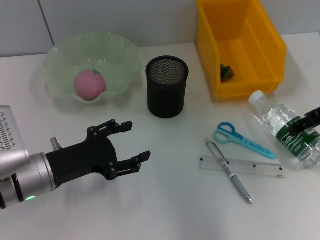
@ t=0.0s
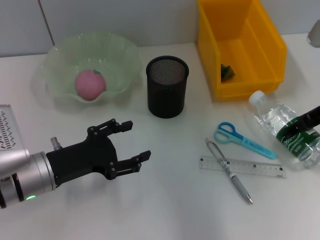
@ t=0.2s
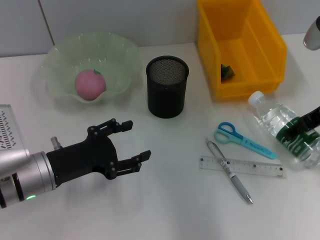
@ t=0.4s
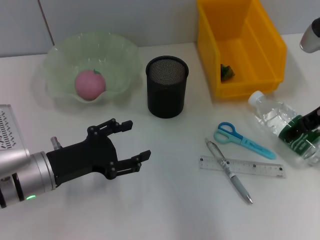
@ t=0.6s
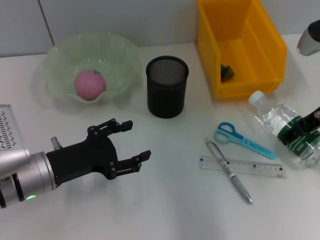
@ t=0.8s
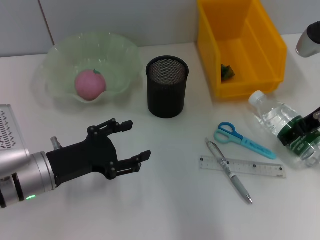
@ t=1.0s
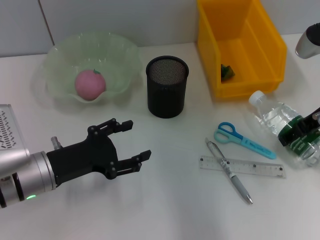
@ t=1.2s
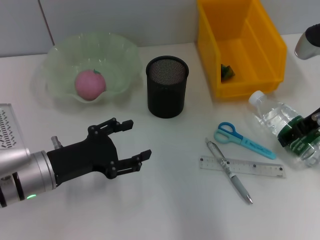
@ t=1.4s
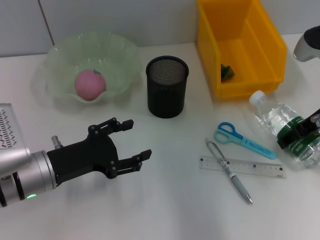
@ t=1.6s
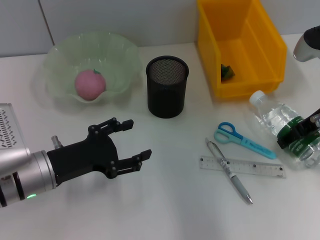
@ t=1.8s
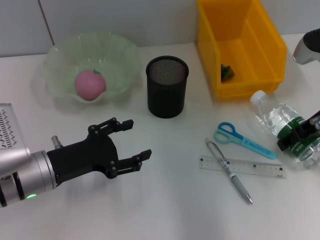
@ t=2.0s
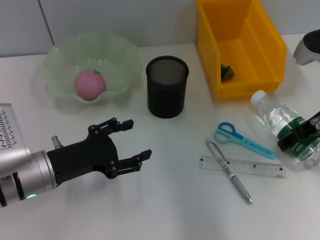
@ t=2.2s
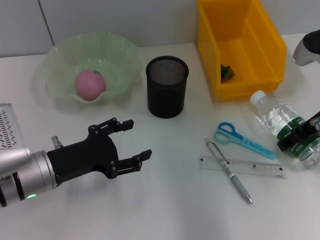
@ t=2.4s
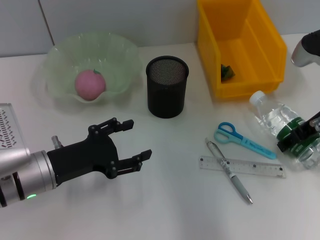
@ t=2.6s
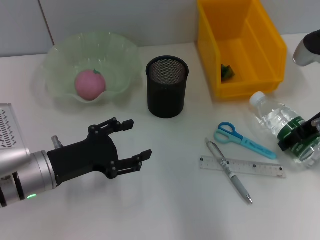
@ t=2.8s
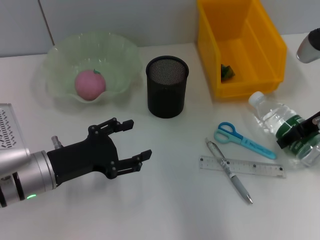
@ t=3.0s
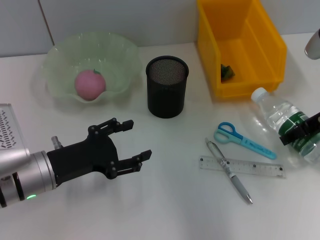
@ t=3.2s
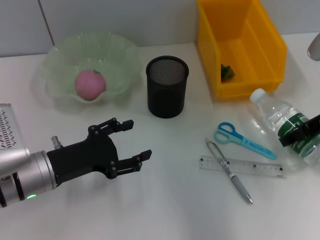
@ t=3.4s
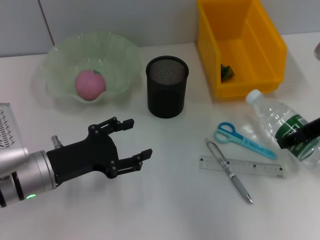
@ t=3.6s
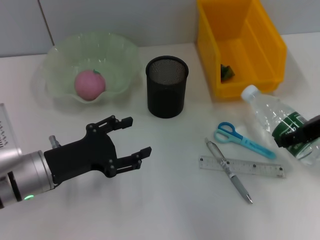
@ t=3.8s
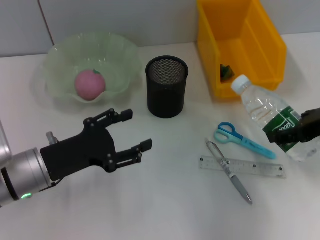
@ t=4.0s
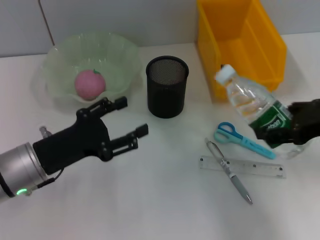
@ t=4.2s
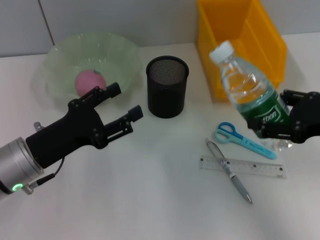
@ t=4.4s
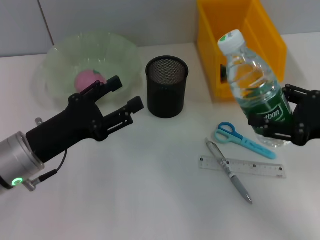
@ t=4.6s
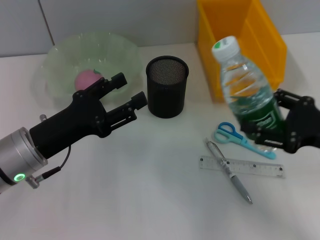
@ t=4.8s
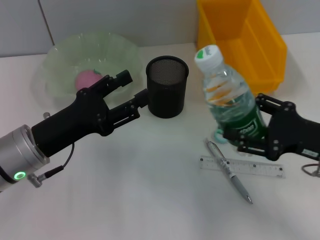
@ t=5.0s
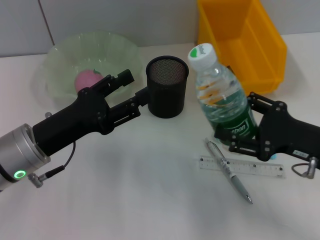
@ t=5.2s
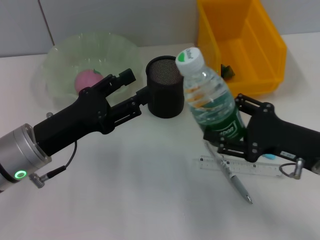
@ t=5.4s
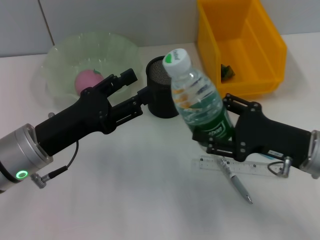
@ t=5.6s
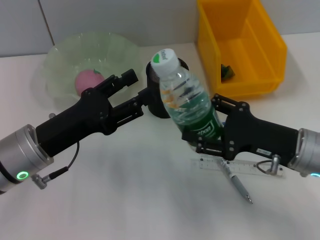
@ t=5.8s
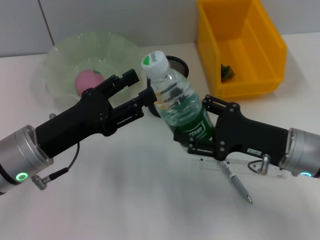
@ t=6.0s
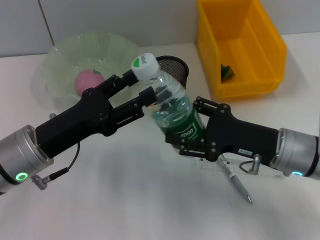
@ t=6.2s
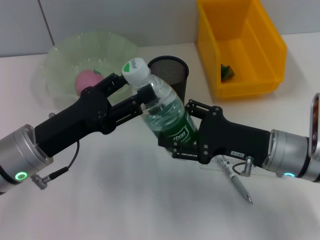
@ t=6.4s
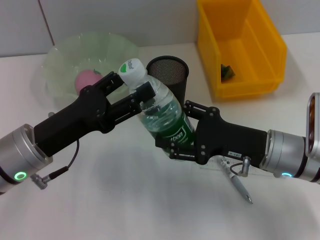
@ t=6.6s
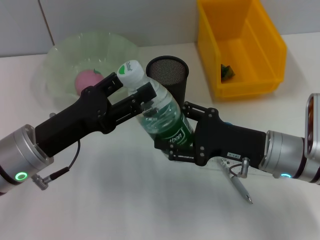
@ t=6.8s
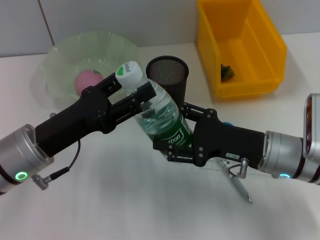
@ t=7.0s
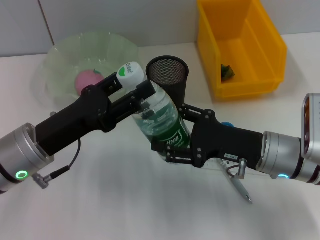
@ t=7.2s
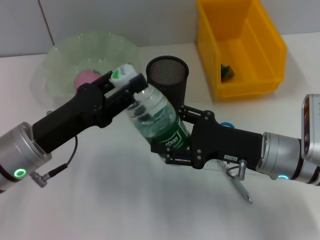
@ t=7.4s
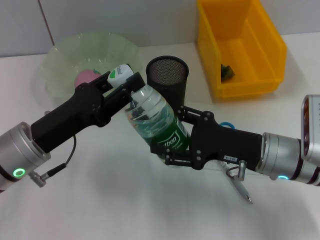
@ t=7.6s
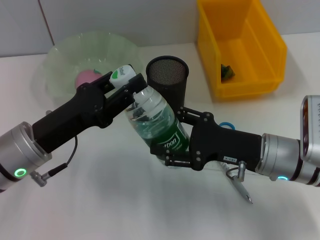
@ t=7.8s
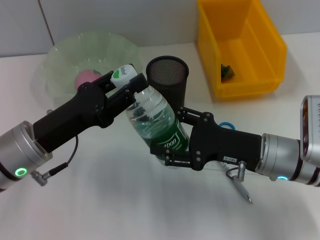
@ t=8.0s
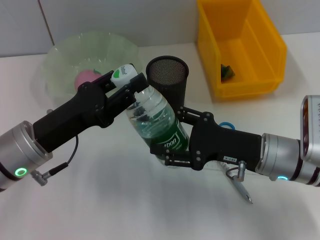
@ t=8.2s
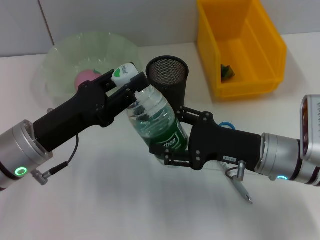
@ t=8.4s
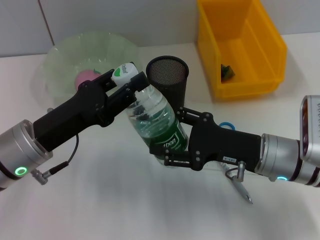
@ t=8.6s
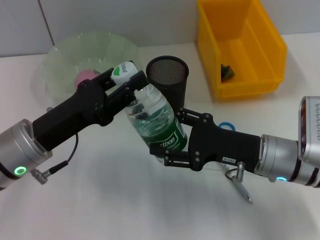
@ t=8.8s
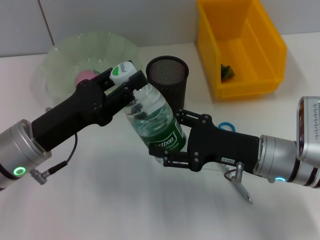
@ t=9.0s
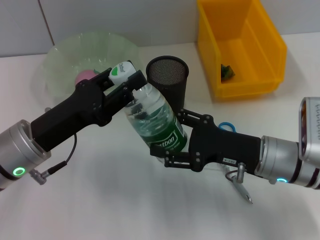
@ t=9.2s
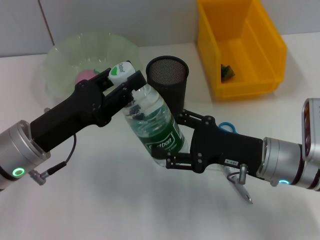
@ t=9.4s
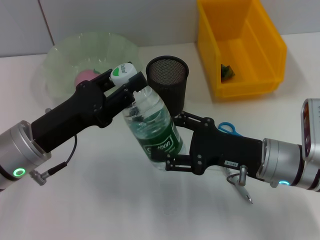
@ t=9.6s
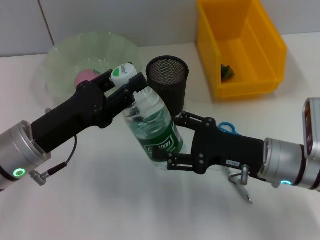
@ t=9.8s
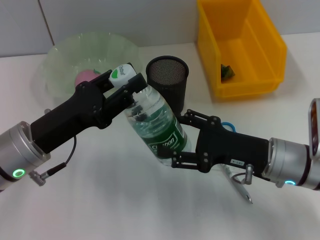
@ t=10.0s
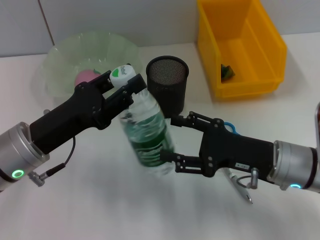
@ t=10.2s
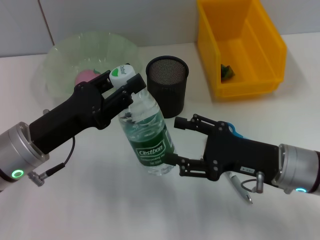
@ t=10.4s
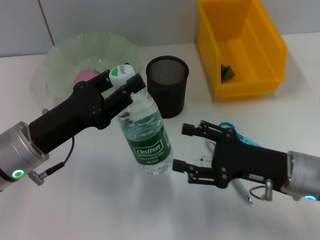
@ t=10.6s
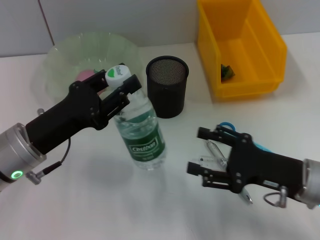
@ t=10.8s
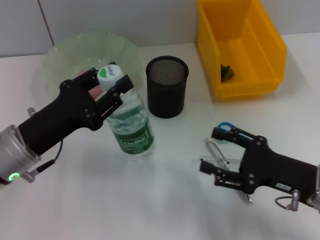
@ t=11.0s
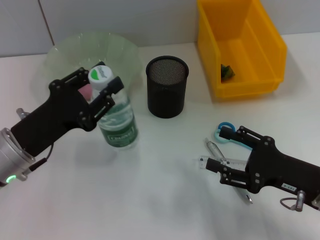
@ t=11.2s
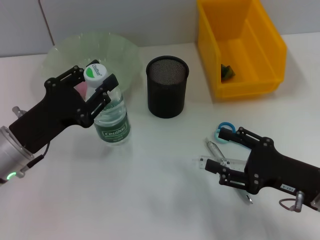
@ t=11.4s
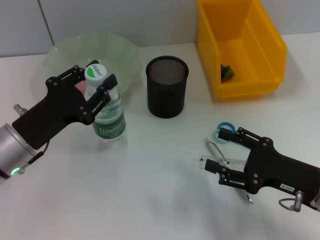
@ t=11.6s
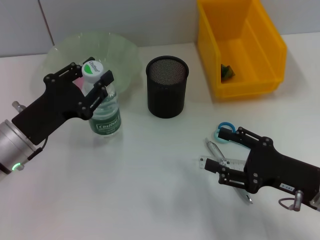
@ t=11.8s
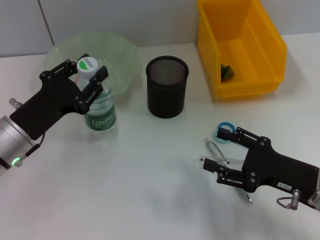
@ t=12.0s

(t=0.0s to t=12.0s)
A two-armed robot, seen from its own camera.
Step, t=0.0s - t=2.8s: Grab the water bottle with the right hand.
Step, t=3.0s - t=10.6s: Pass the water bottle from the right hand to the left hand.
t=0.0s - t=1.6s: The grippers stay close to where they were, moving slightly.
t=1.6s - t=3.0s: Both grippers stay put.
t=3.0s - t=4.4s: The right gripper heads backward, covering roughly 10 cm.
t=4.4s - t=6.0s: The right gripper moves downward and to the left, approximately 10 cm.
t=6.0s - t=7.6s: The left gripper closes.
t=7.6s - t=9.0s: Both grippers stay put.
t=9.0s - t=10.4s: The grippers make only small movements.
t=10.4s - t=12.0s: The right gripper changes place by about 5 cm.

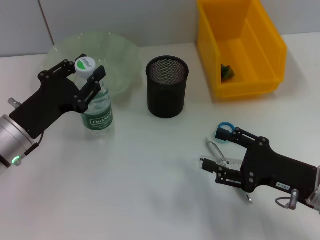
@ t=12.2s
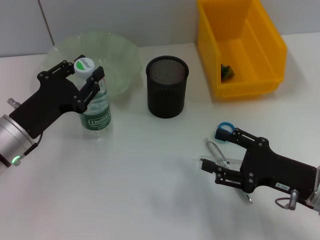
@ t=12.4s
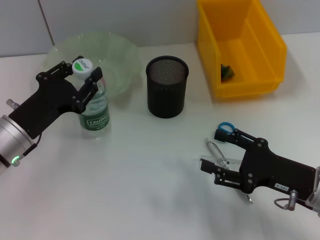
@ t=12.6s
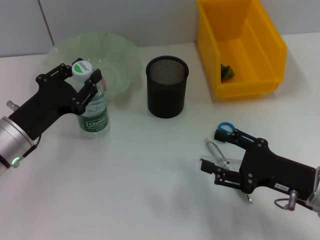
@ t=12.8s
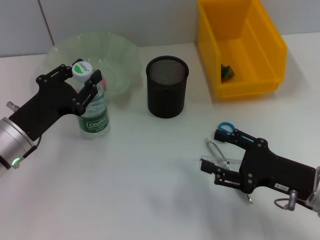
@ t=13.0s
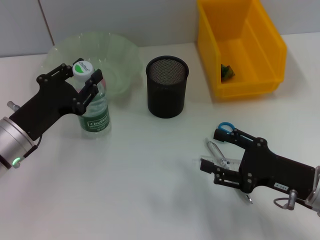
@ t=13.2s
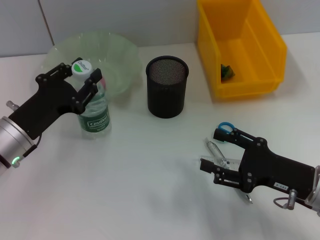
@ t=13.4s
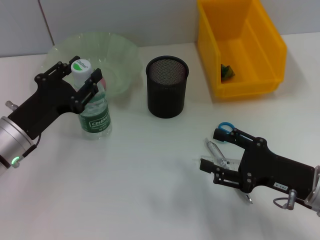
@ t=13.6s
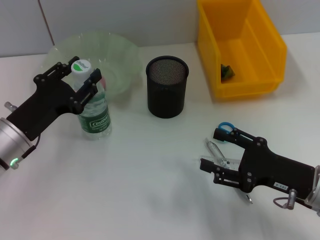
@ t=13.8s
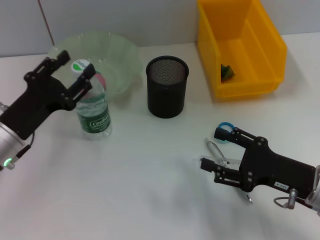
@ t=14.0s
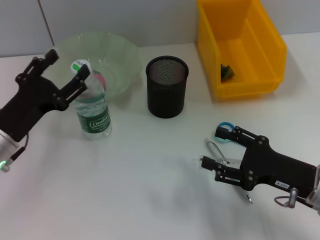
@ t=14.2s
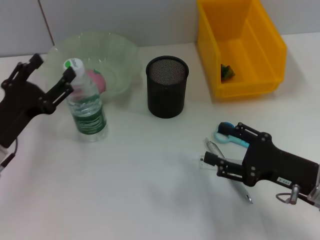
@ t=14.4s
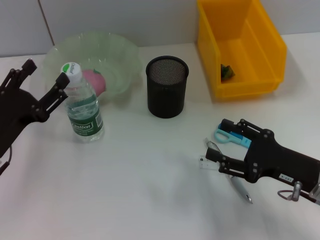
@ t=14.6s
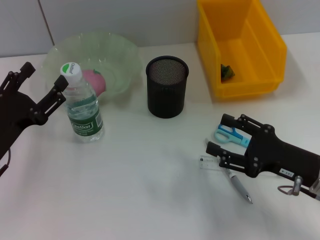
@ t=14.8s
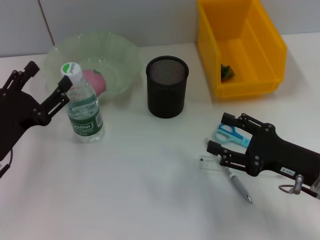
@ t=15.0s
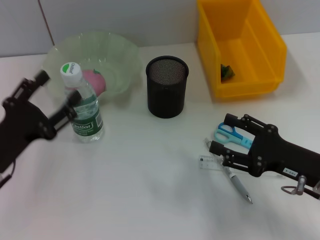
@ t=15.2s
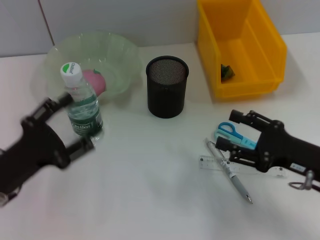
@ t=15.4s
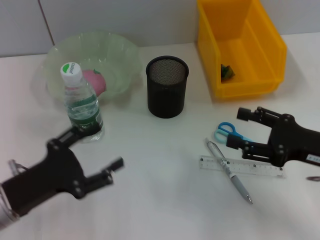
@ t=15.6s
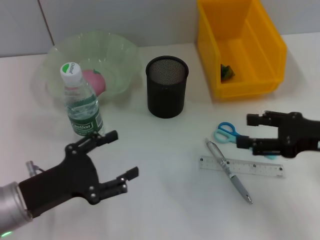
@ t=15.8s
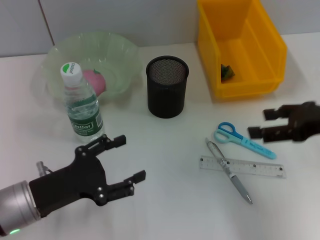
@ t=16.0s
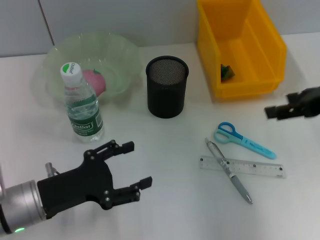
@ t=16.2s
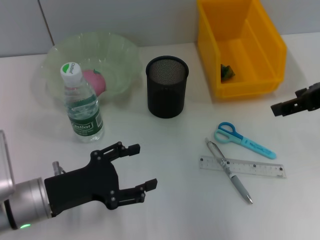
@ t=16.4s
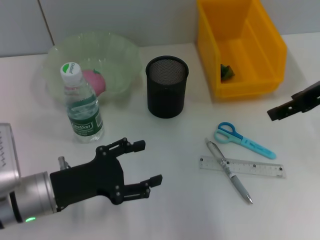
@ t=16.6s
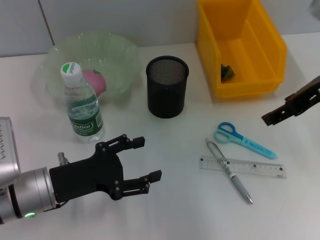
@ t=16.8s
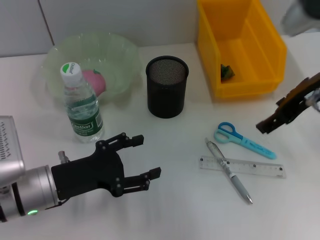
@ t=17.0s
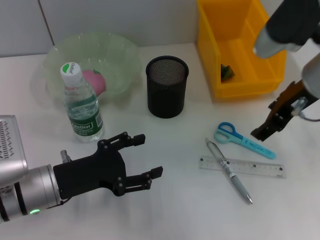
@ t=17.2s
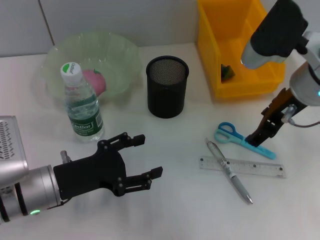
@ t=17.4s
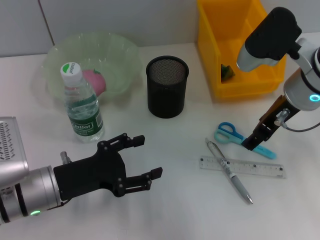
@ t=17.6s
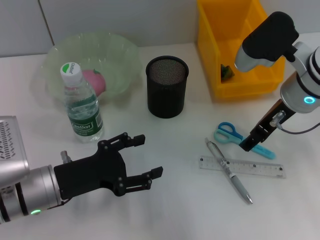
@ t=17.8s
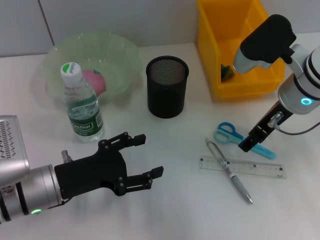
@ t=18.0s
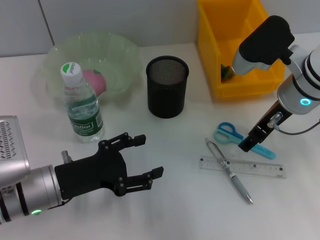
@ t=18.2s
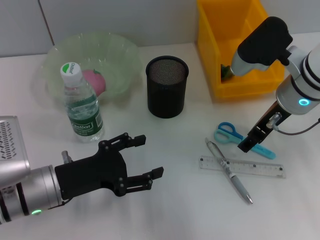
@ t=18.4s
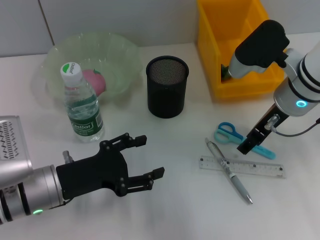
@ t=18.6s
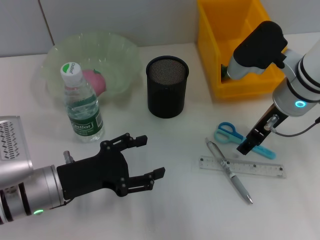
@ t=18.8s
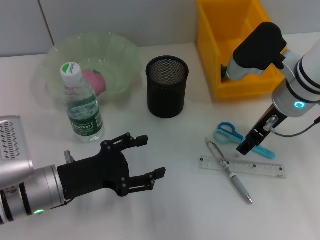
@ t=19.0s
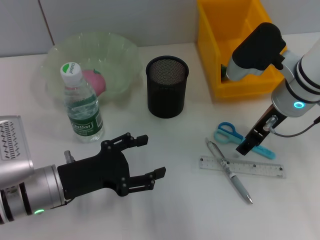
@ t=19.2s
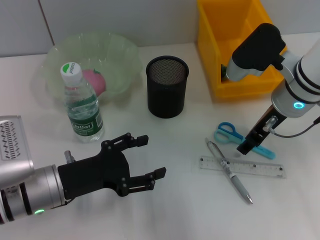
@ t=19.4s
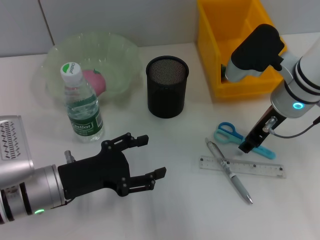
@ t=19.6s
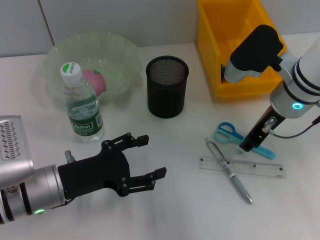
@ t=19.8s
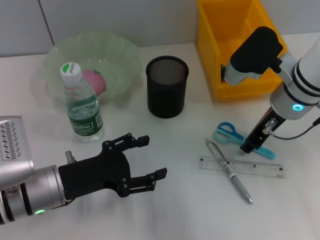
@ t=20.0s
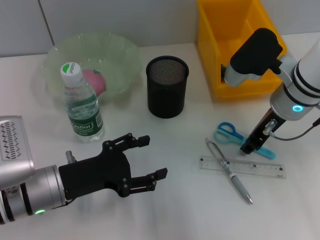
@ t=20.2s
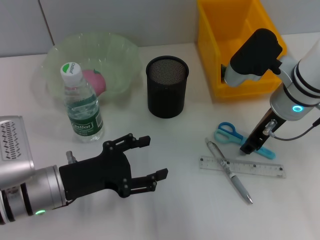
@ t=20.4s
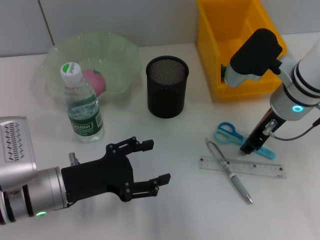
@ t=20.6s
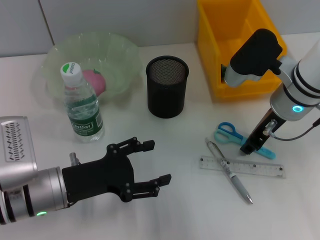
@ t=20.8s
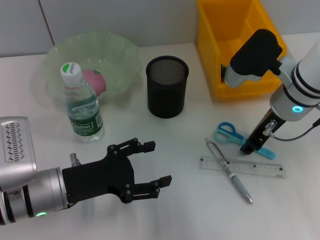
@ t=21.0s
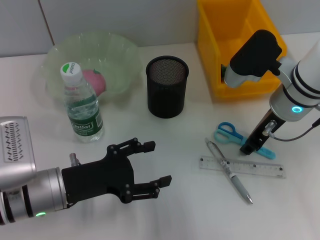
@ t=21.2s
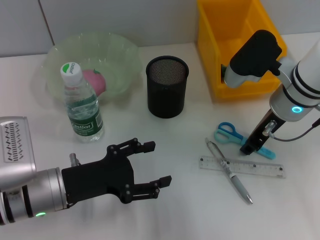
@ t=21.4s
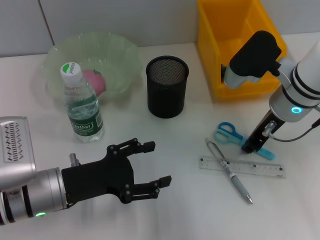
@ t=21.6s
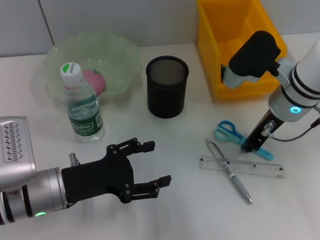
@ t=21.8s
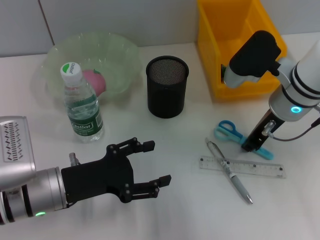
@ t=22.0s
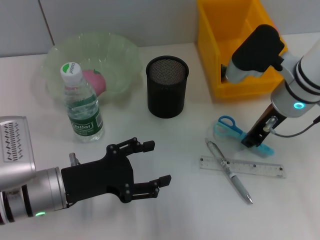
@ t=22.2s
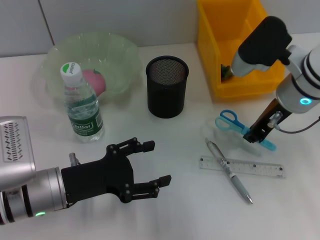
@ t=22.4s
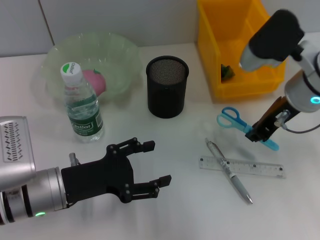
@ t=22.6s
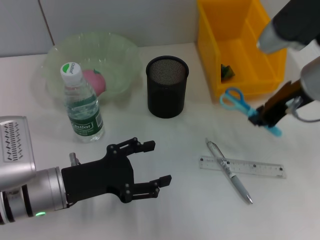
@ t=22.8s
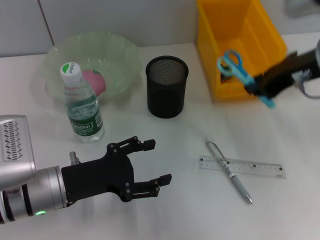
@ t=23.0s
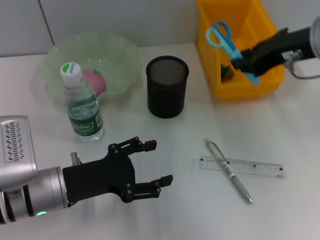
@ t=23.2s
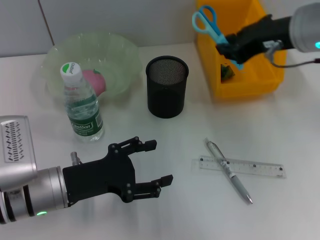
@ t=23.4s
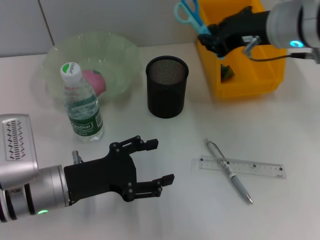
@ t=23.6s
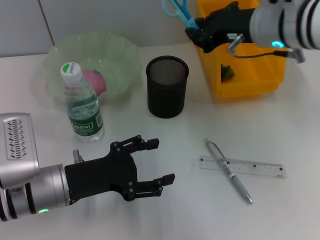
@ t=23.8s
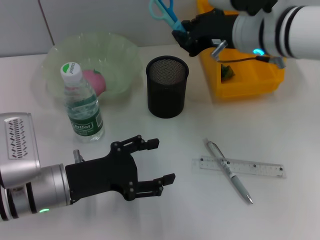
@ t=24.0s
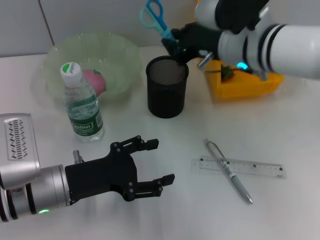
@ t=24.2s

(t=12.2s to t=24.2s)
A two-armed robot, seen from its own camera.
Step, t=12.2s - t=13.8s: Place the water bottle on the table with the left hand.
Step, t=14.2s - t=21.8s: Grab the blue scissors with the right hand.
t=12.2s - t=13.8s: Both grippers stay put.
t=13.8s - t=15.2s: The left gripper moves some 5 cm, and opens up.
t=15.2s - t=16.6s: The left gripper shifts approximately 5 cm to the right, while the right gripper travels upward and forward by approximately 20 cm.
t=16.6s - t=18.2s: The right gripper goes some 10 cm to the left and downward.
t=18.2s - t=19.8s: The right gripper closes.
t=19.8s - t=21.2s: Neither gripper changes place.
t=21.2s - t=22.6s: The grippers move only a little.
t=22.6s - t=24.2s: The right gripper goes approximately 5 cm to the left.
